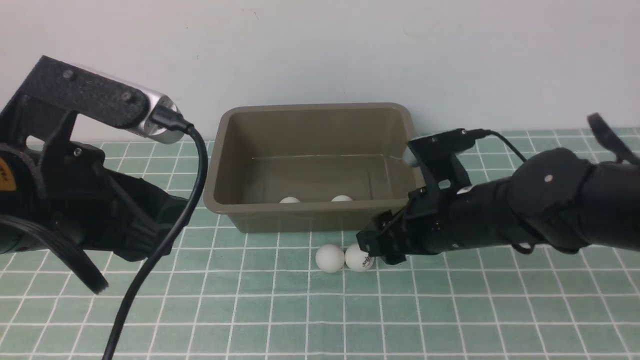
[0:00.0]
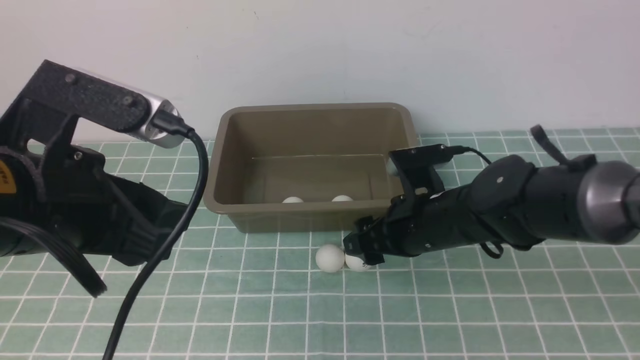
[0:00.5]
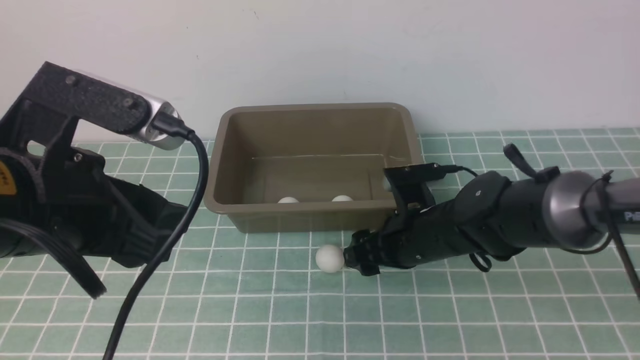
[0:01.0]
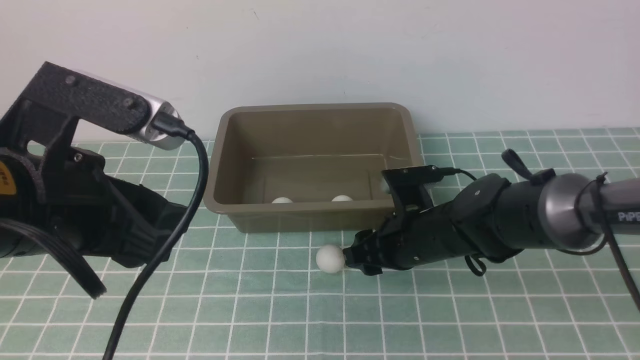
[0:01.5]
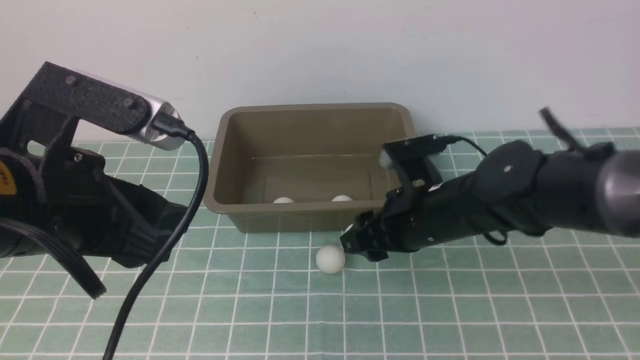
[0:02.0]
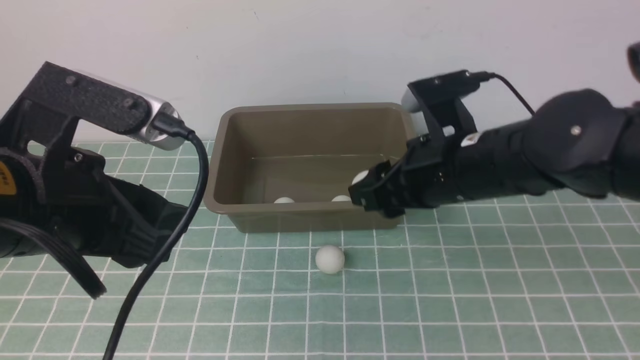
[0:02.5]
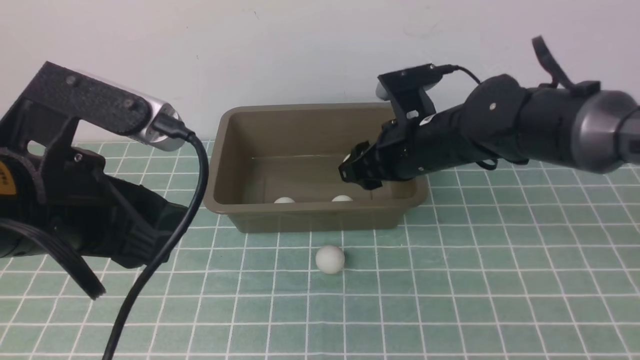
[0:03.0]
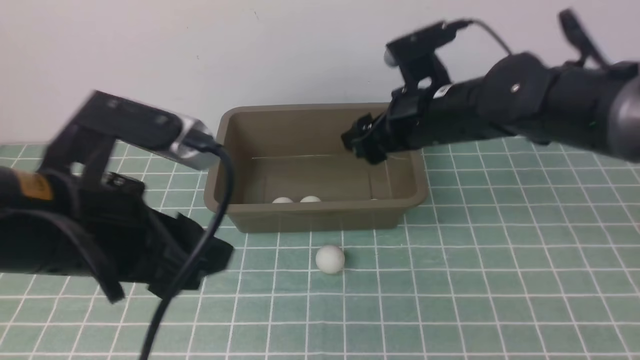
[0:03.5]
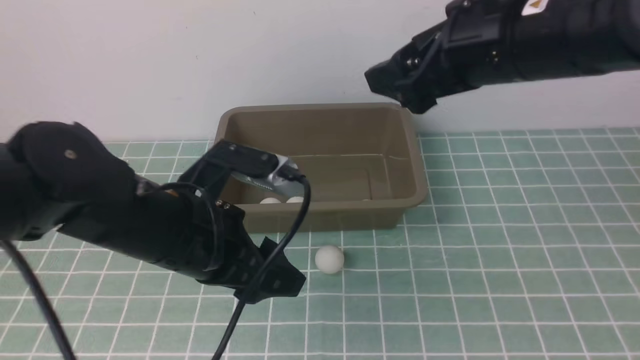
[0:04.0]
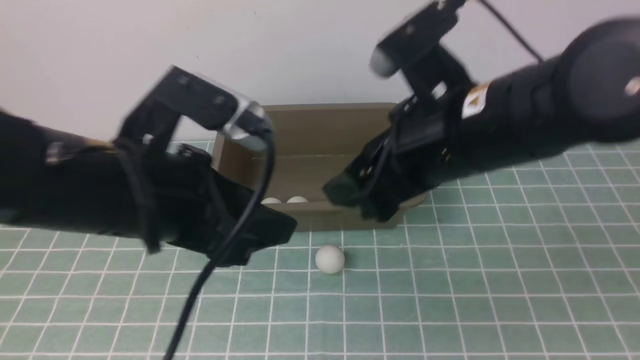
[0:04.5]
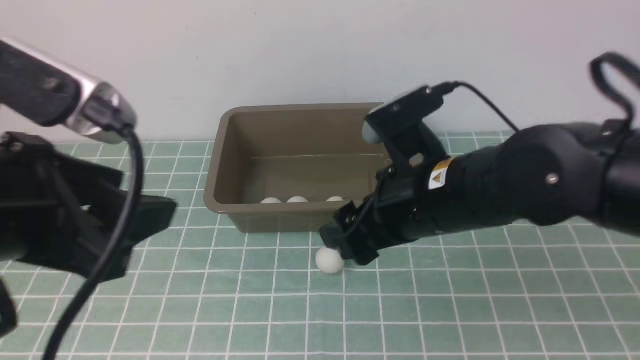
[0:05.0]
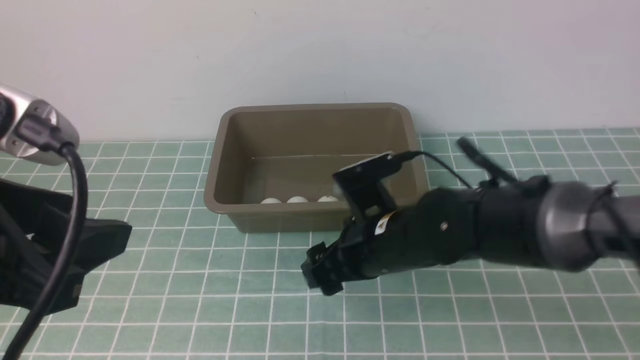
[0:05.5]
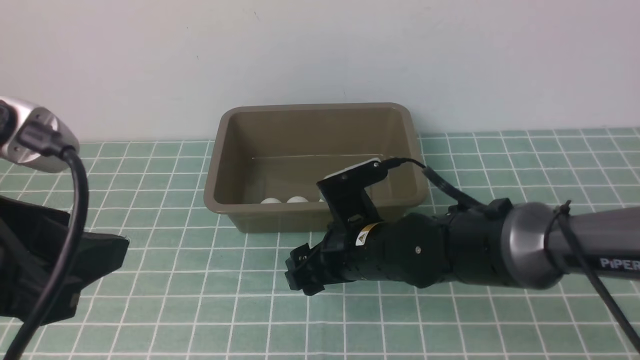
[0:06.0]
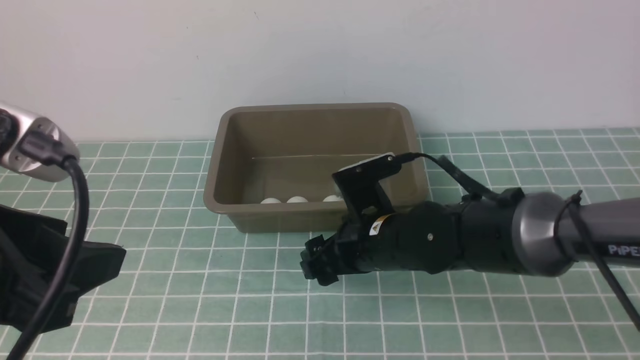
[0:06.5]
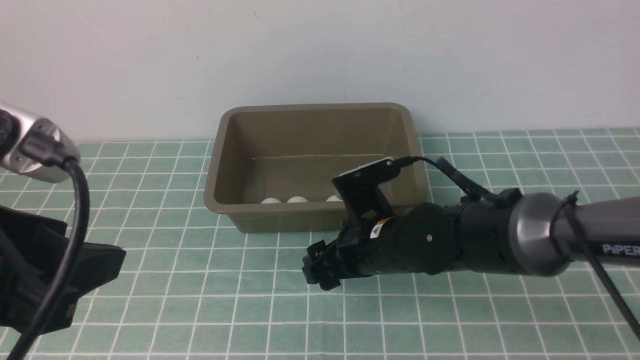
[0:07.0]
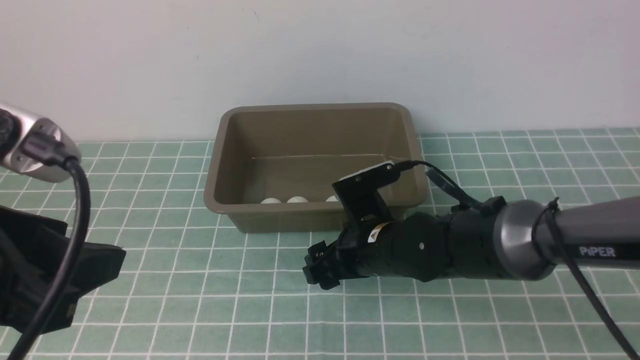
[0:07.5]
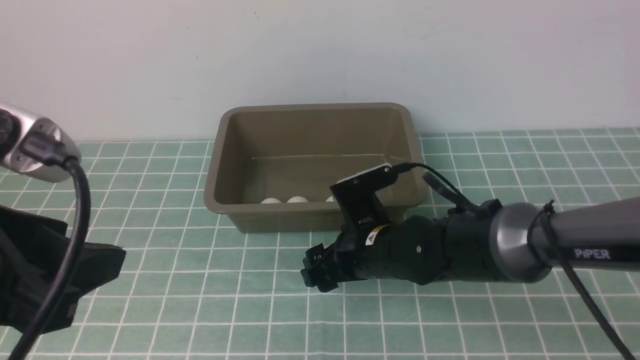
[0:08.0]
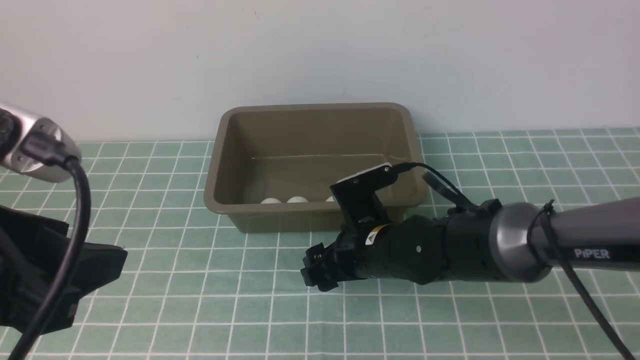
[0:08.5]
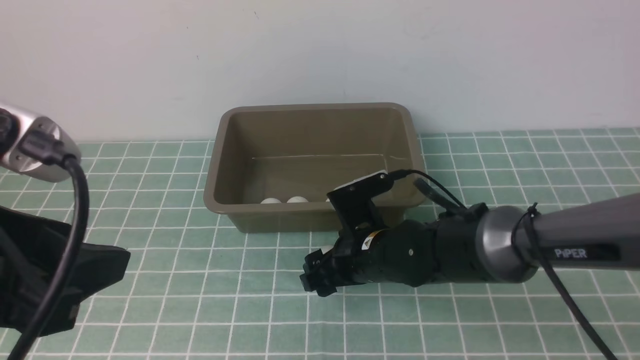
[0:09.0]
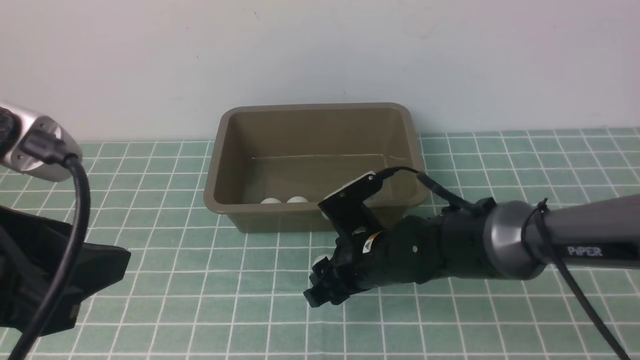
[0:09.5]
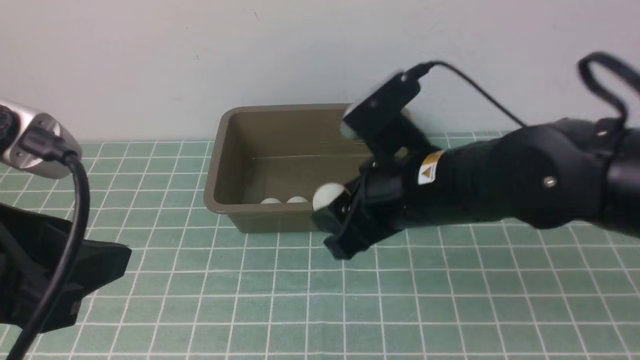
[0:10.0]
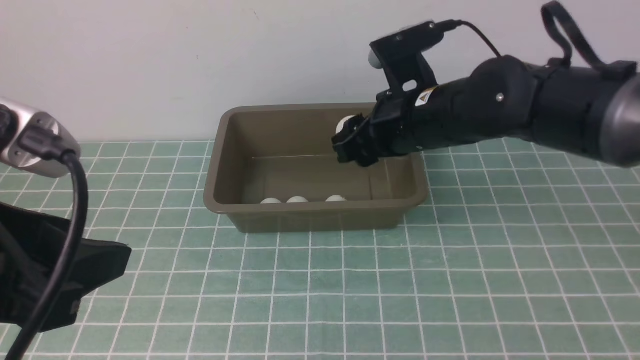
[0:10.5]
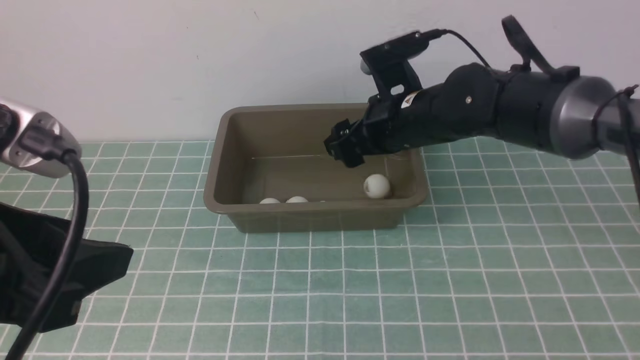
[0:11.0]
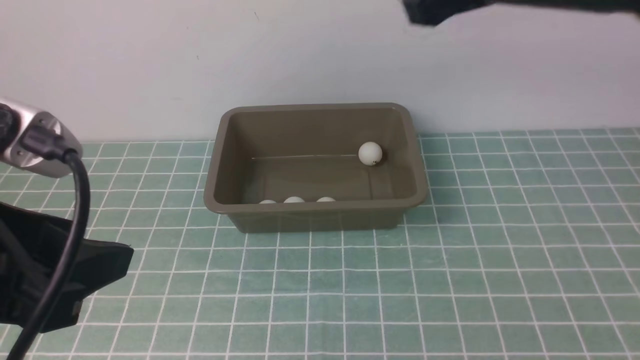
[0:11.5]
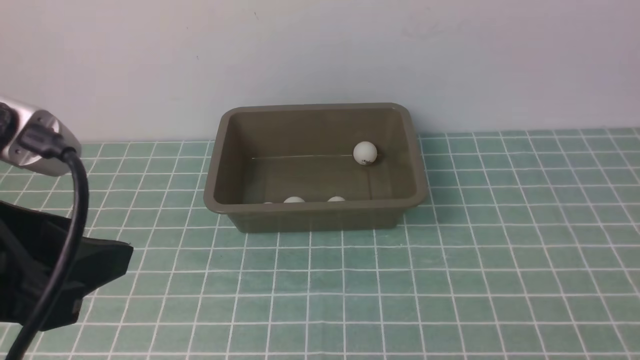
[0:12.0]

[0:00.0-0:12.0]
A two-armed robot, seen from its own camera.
Step, 0:00.0 to 0:02.0: use the right arm to clamp the table tennis ball closest to it.
Step, 0:02.5 to 0:03.0: use the right arm to put the table tennis ball into the box.
Step, 0:04.0 to 0:09.5: use the right arm to clamp the table tennis ball closest to it.
Step, 0:10.0 to 0:11.0: use the right arm to put the table tennis ball into the box.
0:00.0 to 0:02.0: The right gripper opens and closes again.
0:02.0 to 0:04.0: The right gripper travels upward by approximately 20 cm, and opens its fingers; the left gripper goes approximately 10 cm downward, to the right and forward.
0:04.0 to 0:06.0: The left gripper moves backward, upward and to the left, about 20 cm, while the right gripper moves downward and to the left, some 25 cm.
0:06.0 to 0:08.0: The grippers move only a little.
0:08.0 to 0:10.0: The right gripper goes some 15 cm upward, and closes its fingers.
0:10.0 to 0:12.0: The right gripper moves backward, to the right and upward, about 30 cm, and opens.

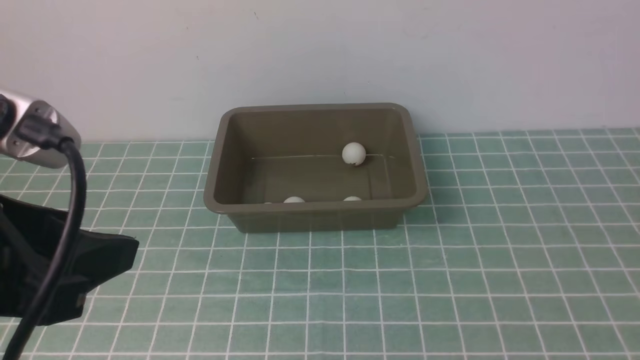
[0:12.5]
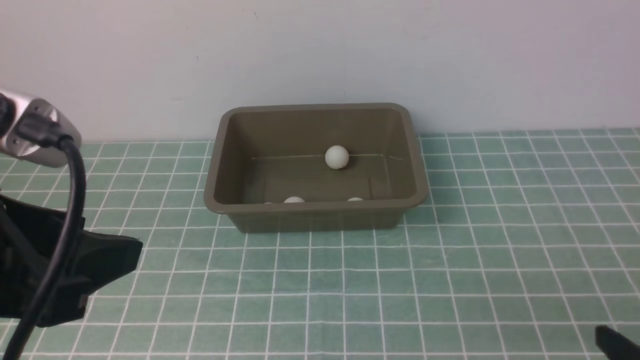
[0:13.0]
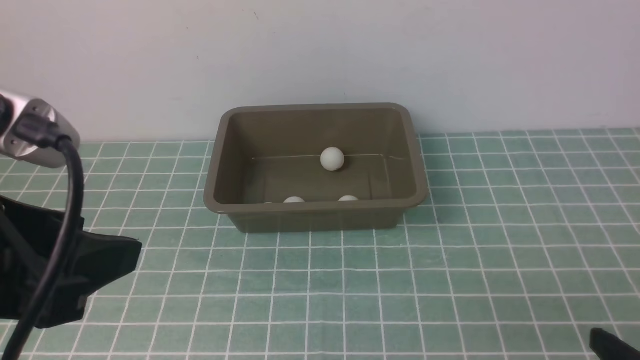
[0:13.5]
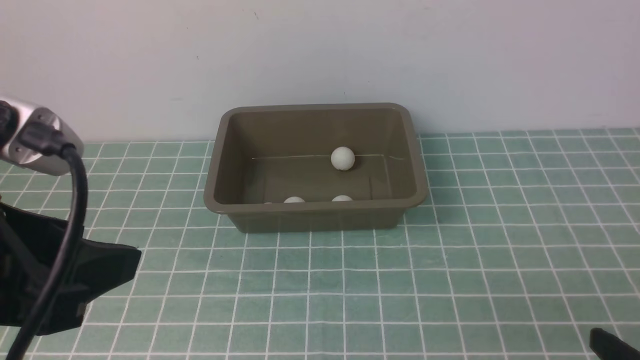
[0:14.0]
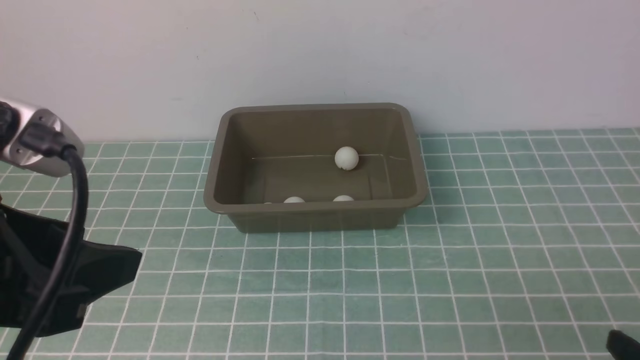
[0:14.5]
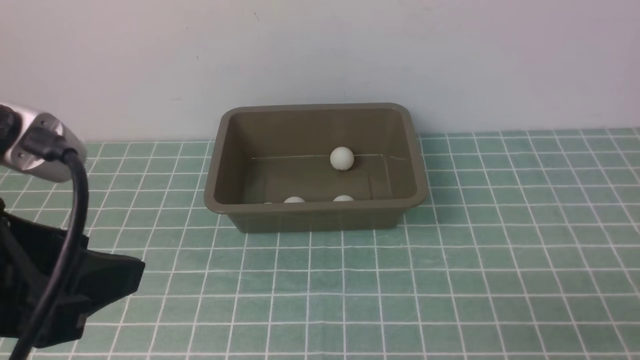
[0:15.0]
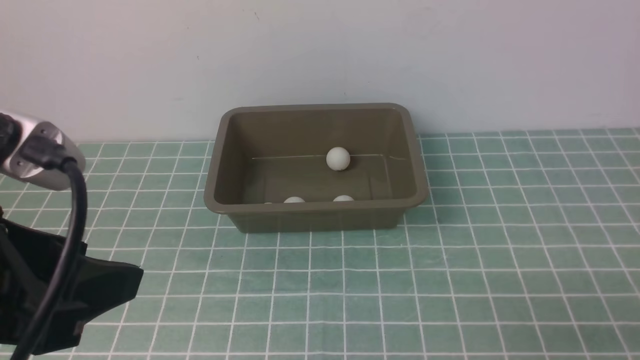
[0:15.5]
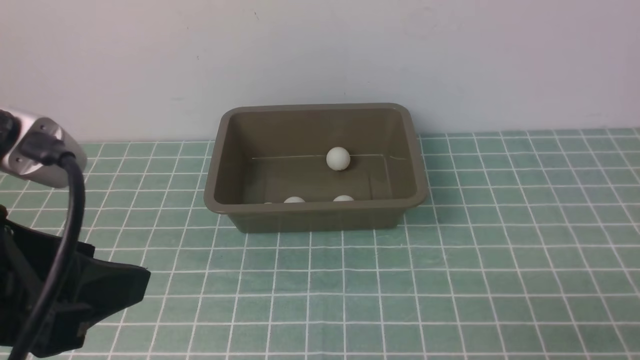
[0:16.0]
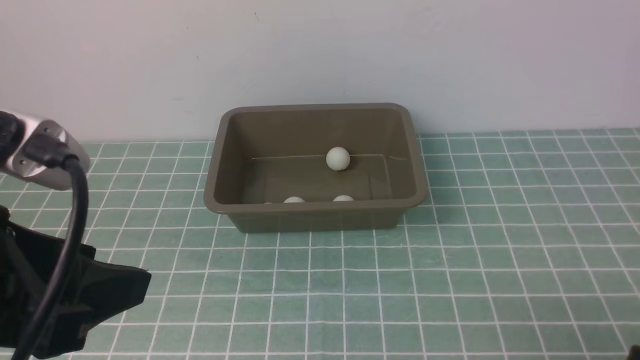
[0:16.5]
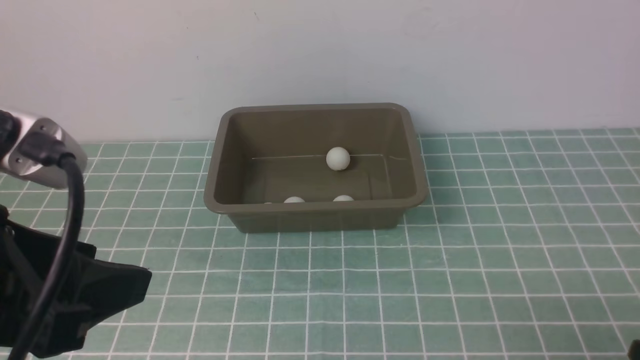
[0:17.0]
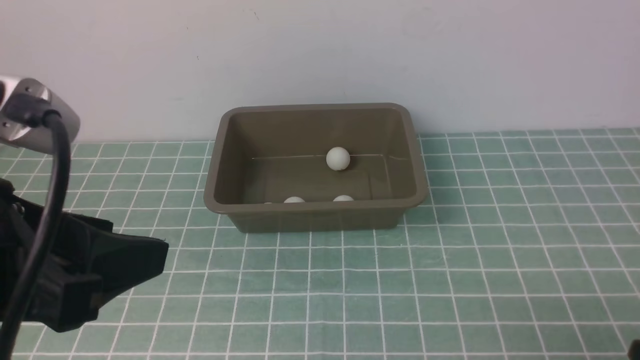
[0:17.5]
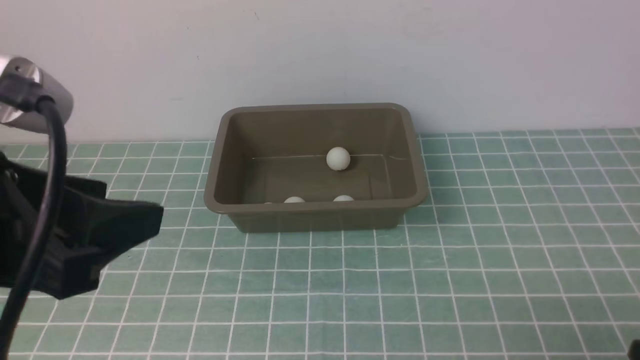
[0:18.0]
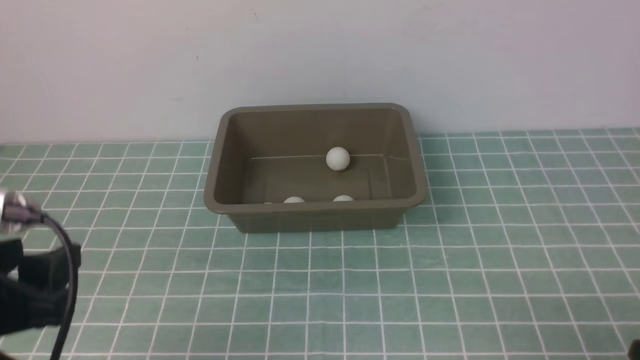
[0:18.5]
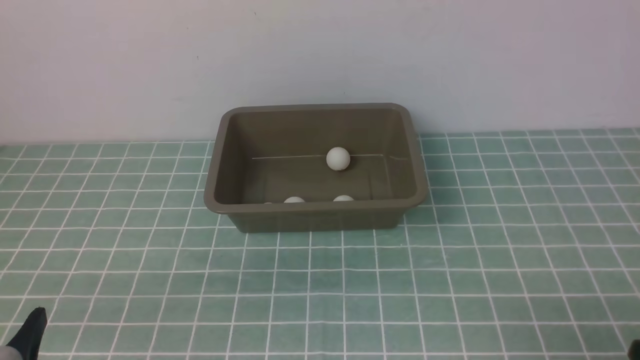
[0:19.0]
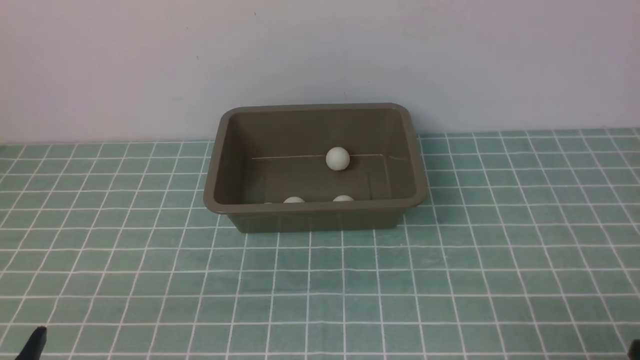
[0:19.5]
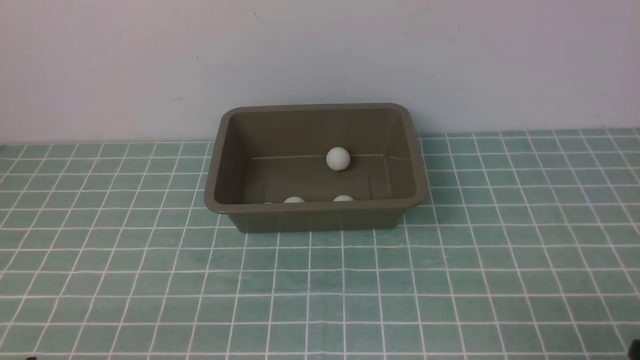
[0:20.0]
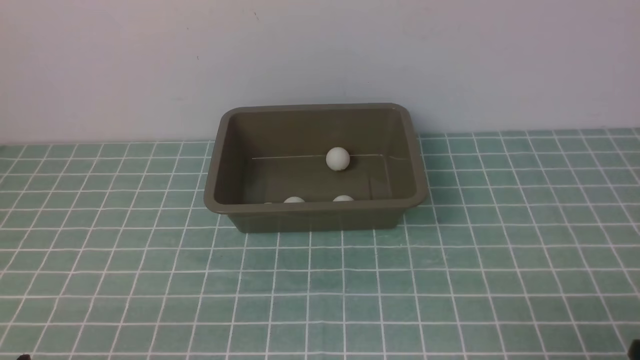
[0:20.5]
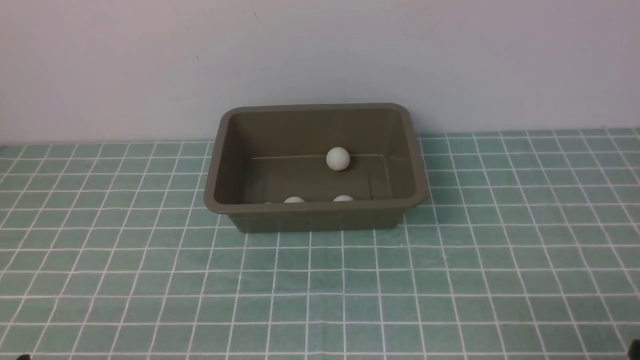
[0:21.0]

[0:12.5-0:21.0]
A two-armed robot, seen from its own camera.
0:12.5 to 0:14.5: The grippers move only a little.
0:14.5 to 0:16.5: The grippers move only a little.
0:16.5 to 0:19.0: The left gripper goes roughly 15 cm downward.
